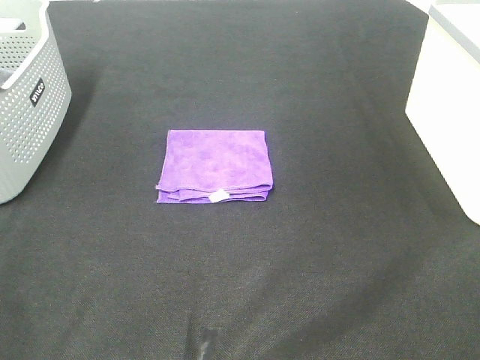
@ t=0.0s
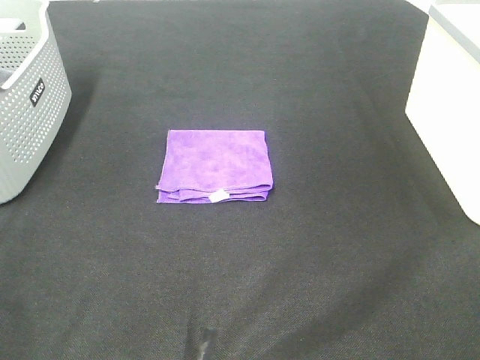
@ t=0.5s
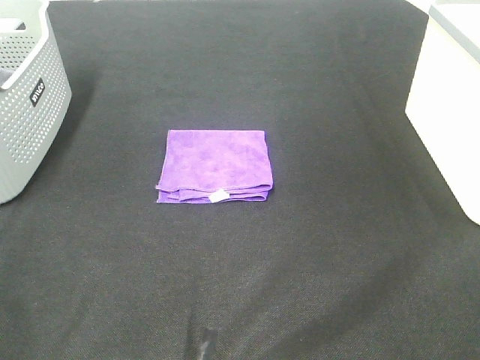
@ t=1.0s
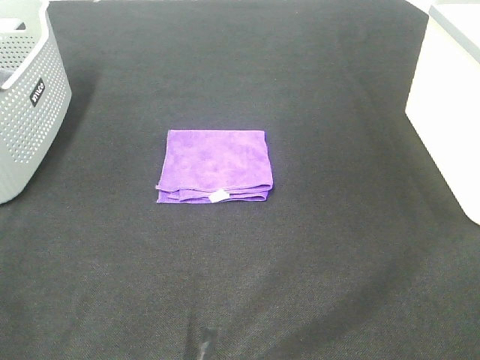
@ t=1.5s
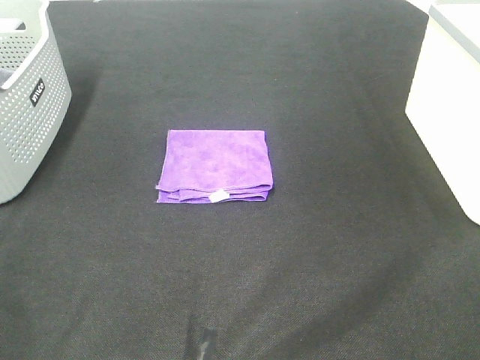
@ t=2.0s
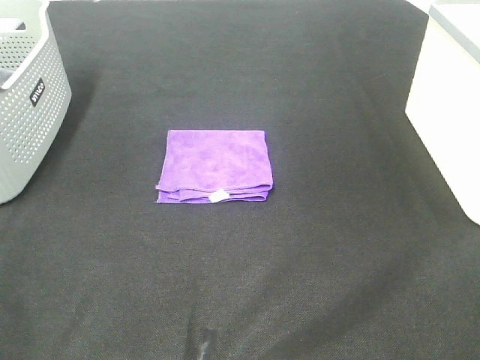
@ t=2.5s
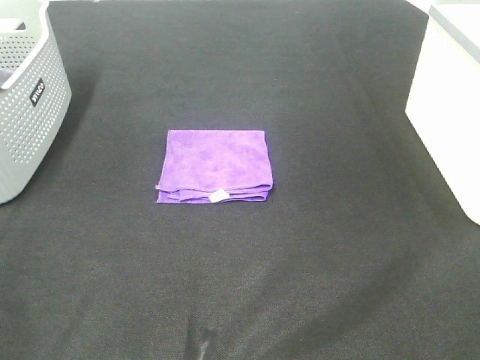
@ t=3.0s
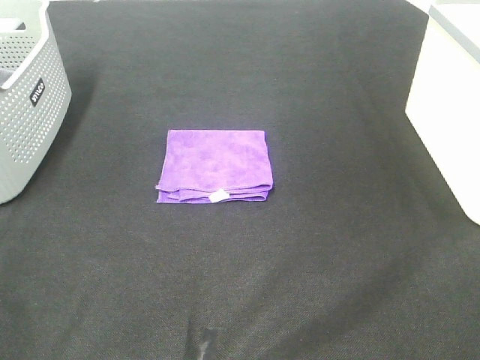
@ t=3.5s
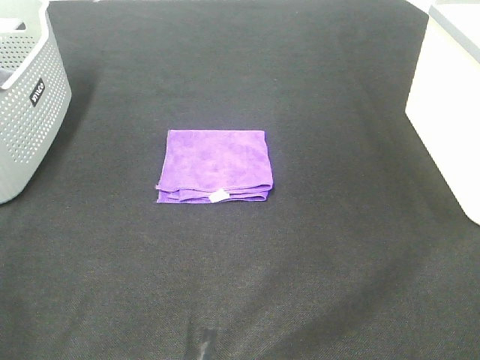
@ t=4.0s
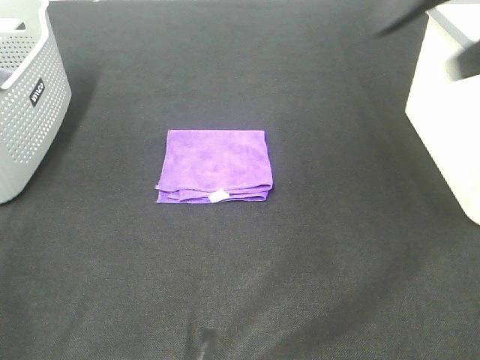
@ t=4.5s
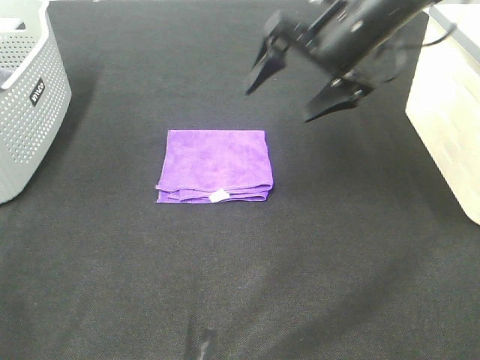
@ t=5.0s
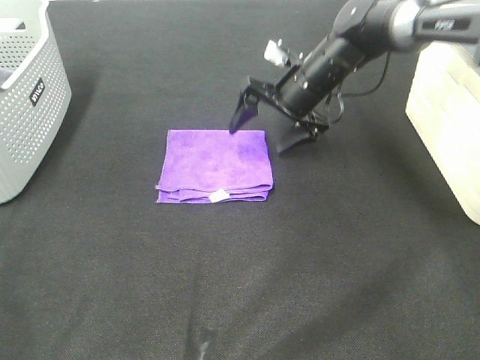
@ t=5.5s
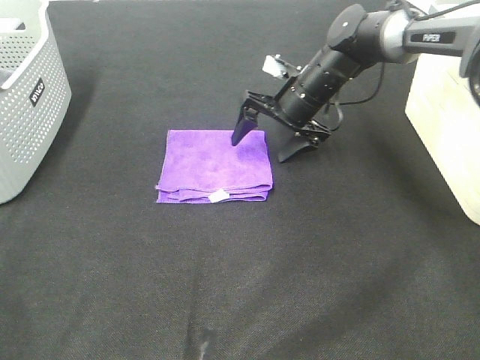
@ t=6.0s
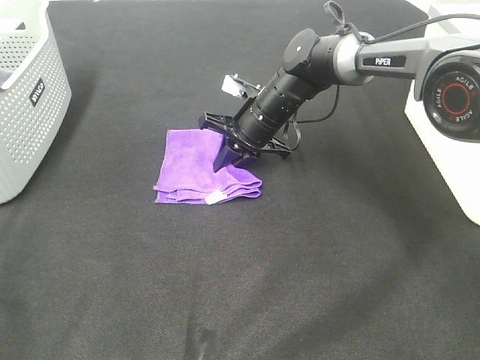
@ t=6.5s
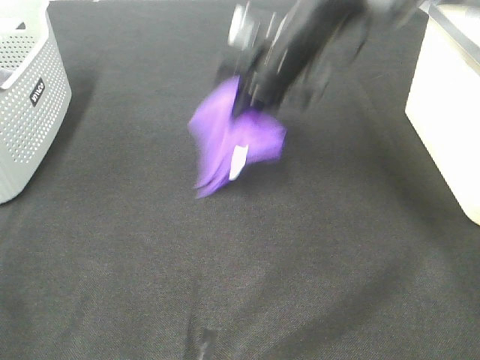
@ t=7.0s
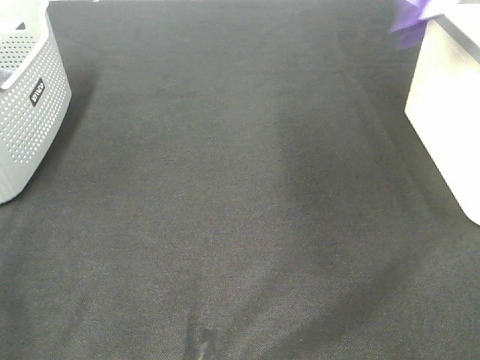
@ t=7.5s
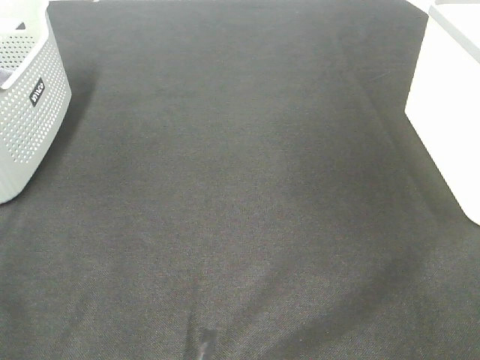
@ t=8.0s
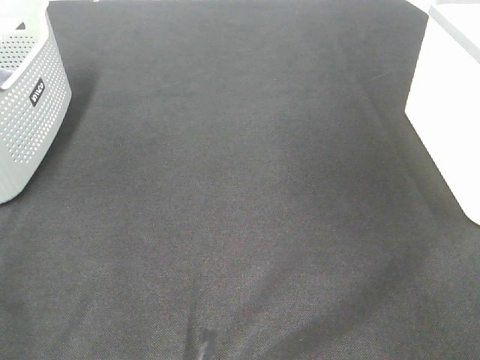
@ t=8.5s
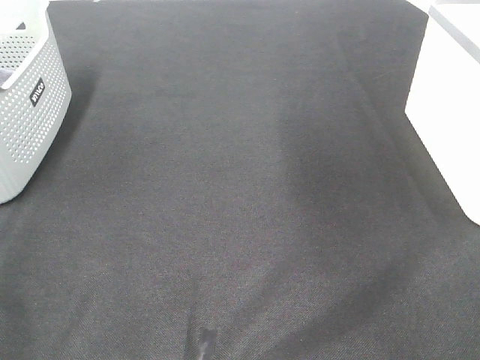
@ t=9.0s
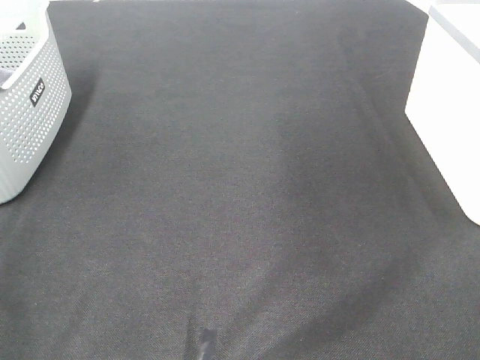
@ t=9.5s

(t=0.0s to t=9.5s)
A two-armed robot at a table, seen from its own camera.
Step, t=0.0s - t=6.5s: Right hand: grab the folded purple towel.
Step, t=7.0s - t=8.0s: Right hand: place the purple towel in right basket.
t=0.0s - t=2.0s: The two grippers keep their place.
t=4.0s - t=5.5s: The right gripper heads forward, downward and to the left, covering roughly 50 cm.
t=5.5s - t=7.5s: The right gripper is displaced upward and to the right by about 35 cm, and closes.
t=7.5s - t=9.5s: The right gripper travels backward by approximately 15 cm, and opens.

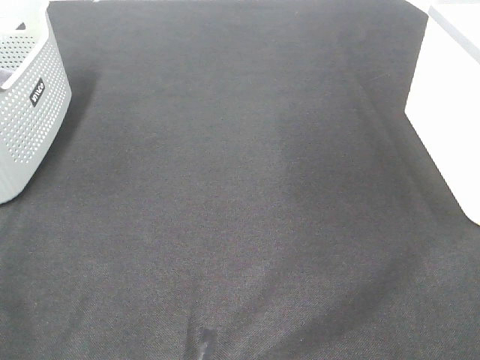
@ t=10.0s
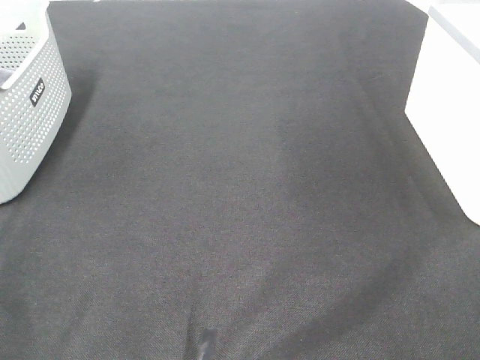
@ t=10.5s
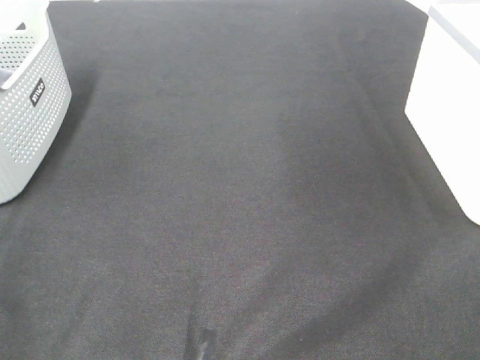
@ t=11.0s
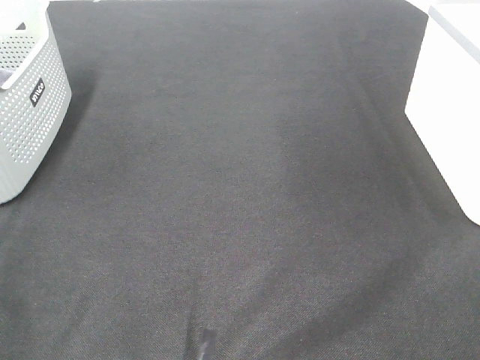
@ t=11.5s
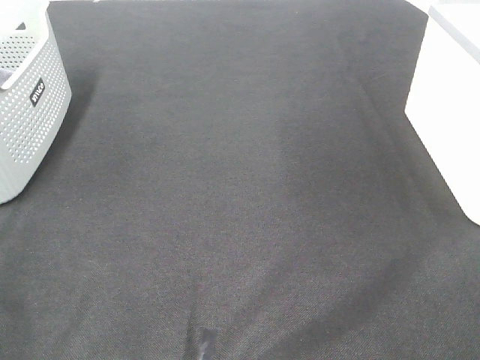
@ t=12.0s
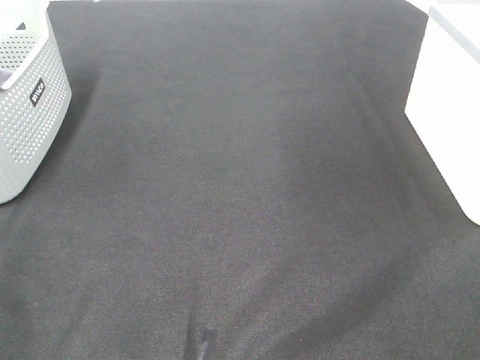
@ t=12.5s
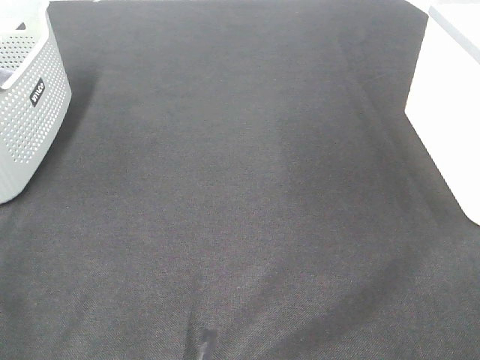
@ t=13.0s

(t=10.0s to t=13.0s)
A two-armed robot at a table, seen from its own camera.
t=11.5s - t=13.0s: The two grippers keep their place.

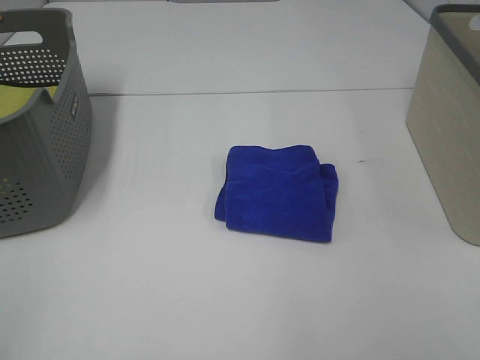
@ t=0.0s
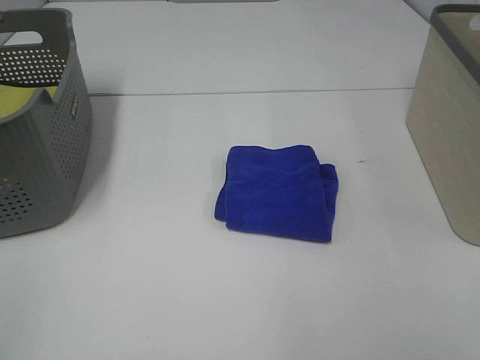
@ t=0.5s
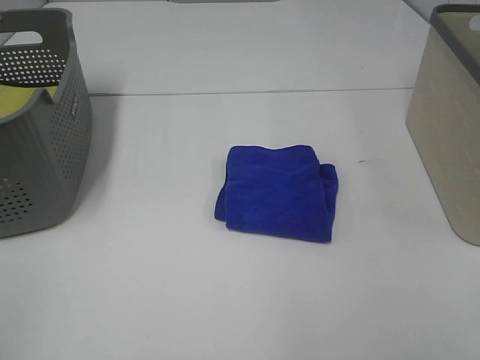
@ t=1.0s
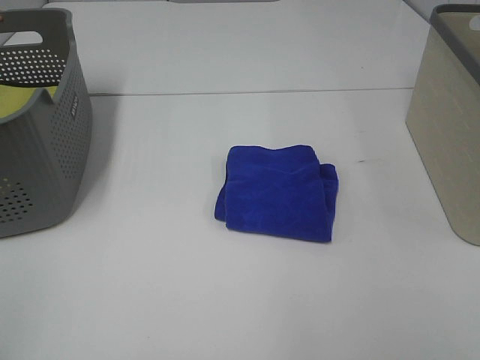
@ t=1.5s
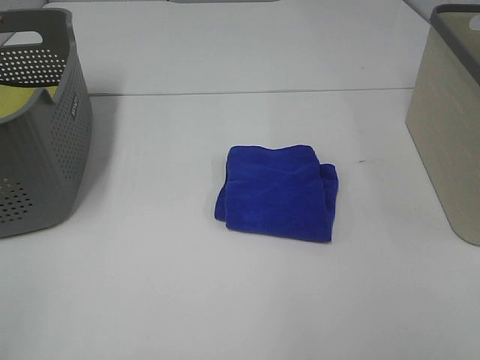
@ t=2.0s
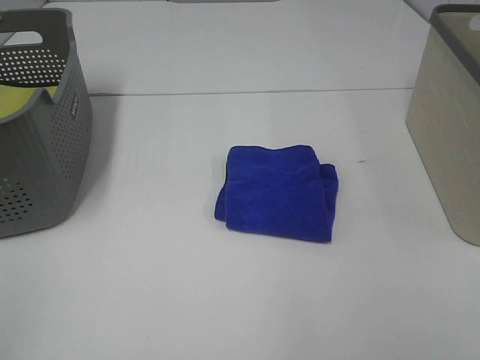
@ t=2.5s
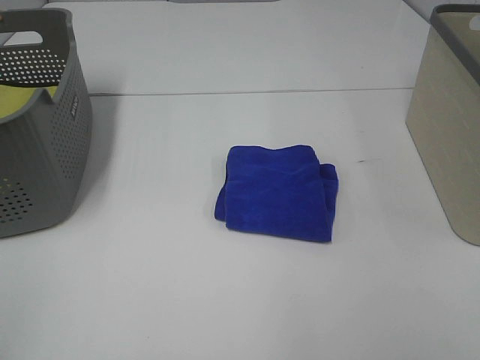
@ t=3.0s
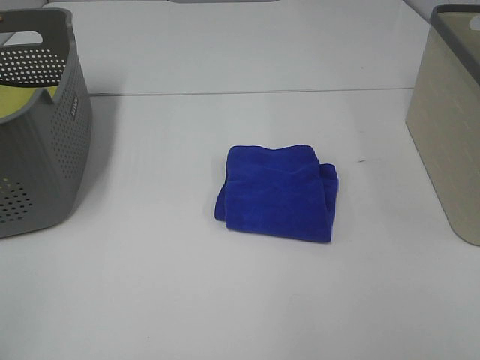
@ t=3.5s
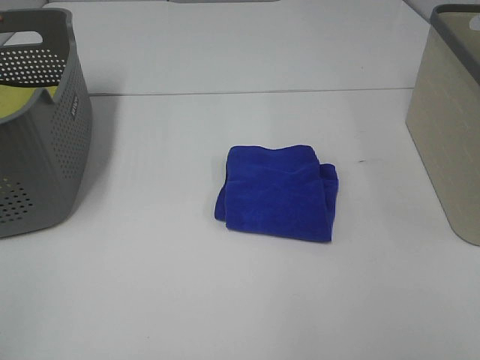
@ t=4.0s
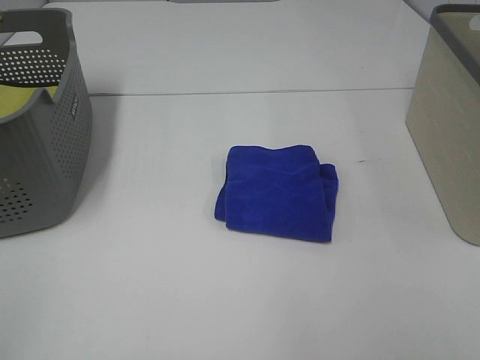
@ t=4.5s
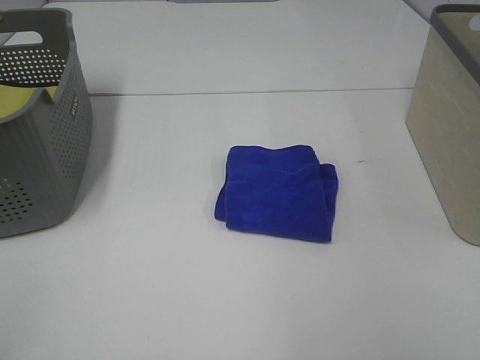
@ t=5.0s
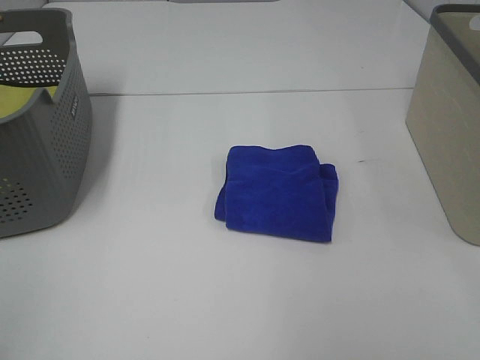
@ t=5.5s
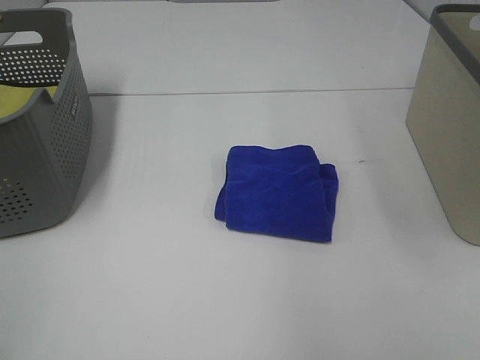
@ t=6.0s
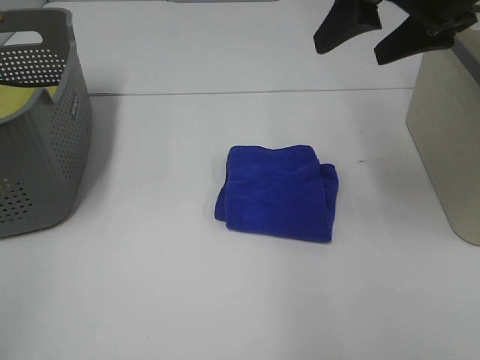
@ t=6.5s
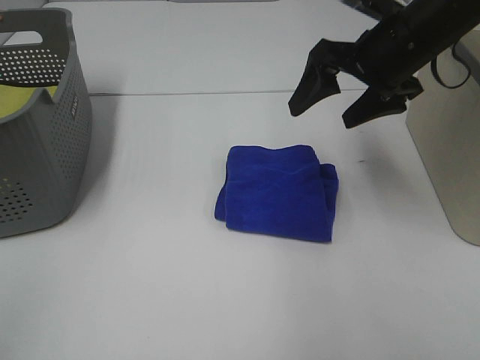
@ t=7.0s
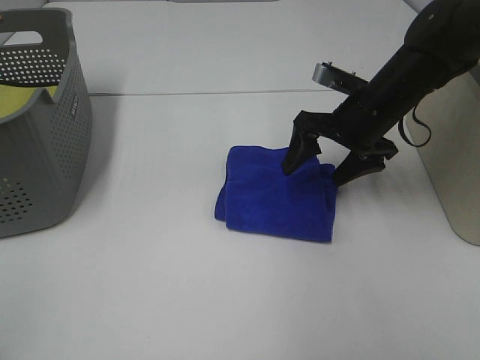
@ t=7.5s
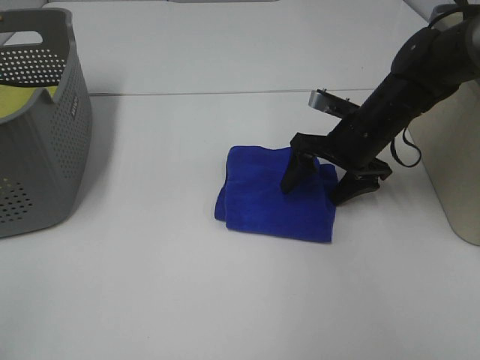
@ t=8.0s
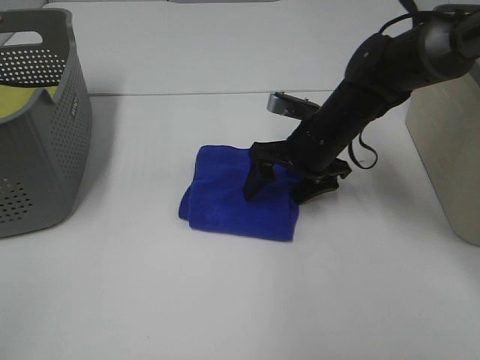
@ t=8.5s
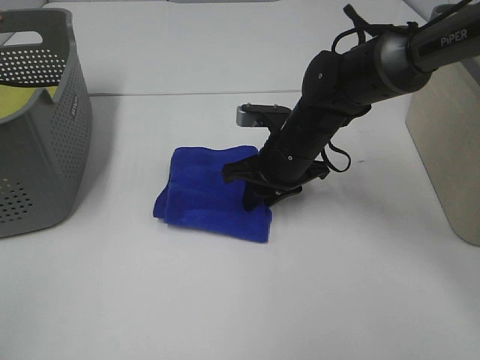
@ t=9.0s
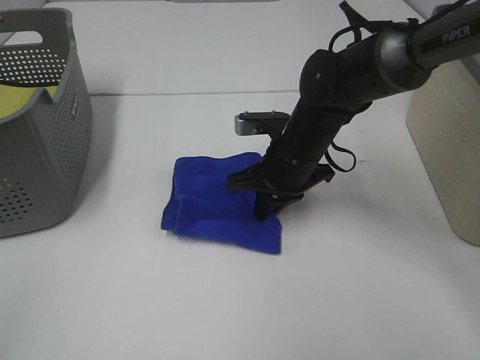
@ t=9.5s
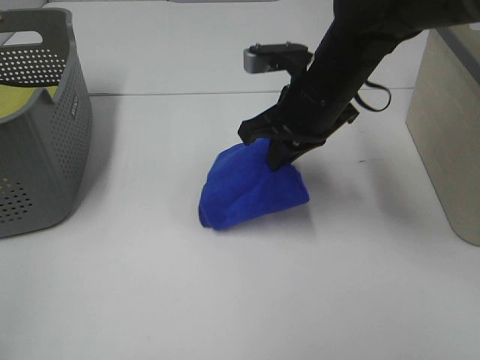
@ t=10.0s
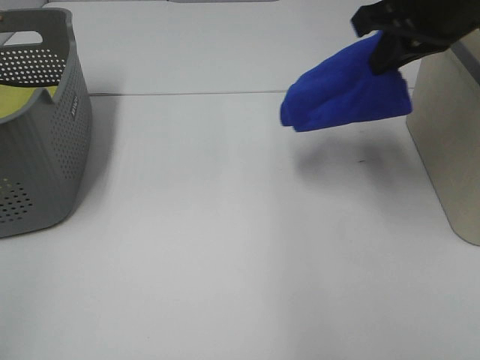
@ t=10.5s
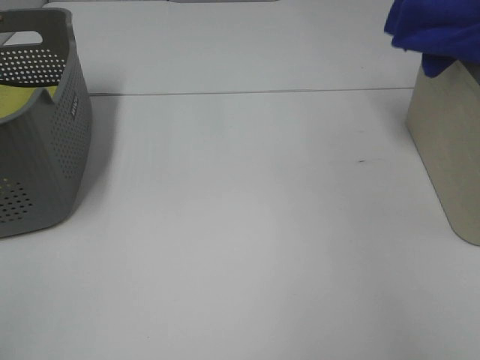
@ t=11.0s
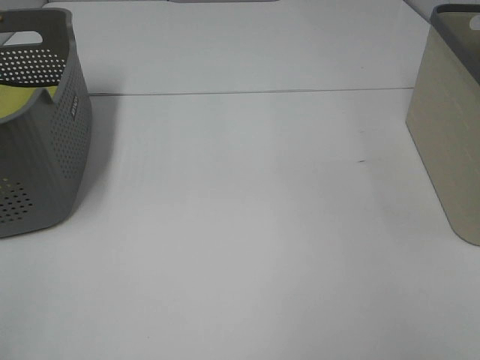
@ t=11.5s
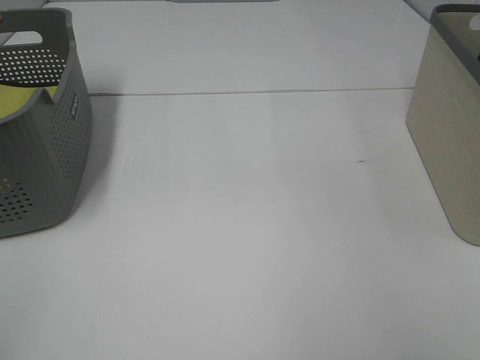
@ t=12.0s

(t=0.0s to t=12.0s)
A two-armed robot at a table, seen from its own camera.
Step, t=0.0s - t=9.0s: Right hand: grab the folded blue towel.
t=0.0s - t=4.0s: Neither gripper changes place.
t=6.0s - t=8.0s: The right gripper goes some 35 cm downward and forward.
t=8.0s - t=10.0s: The right gripper shifts some 15 cm upward and to the left, and closes.
t=10.0s - t=12.0s: The right gripper moves to the right, about 35 cm.

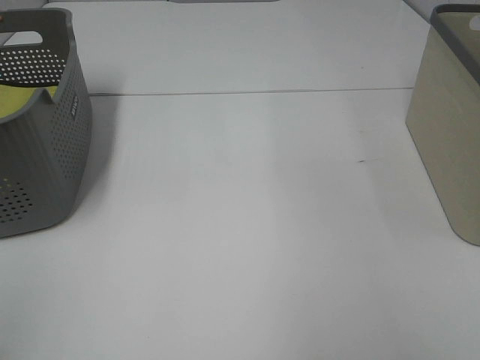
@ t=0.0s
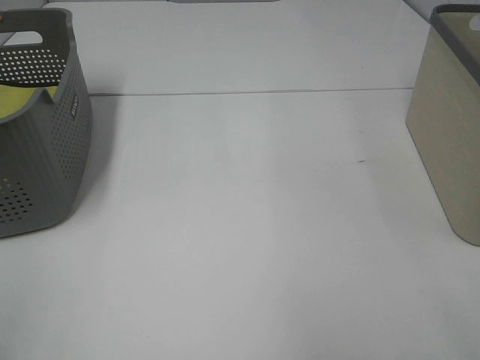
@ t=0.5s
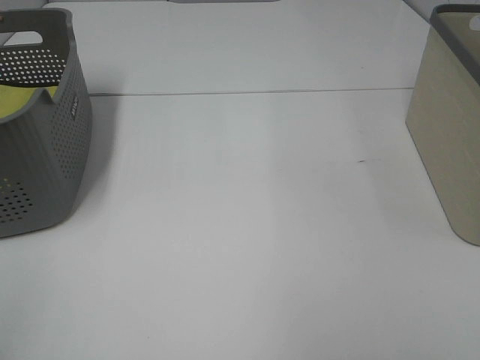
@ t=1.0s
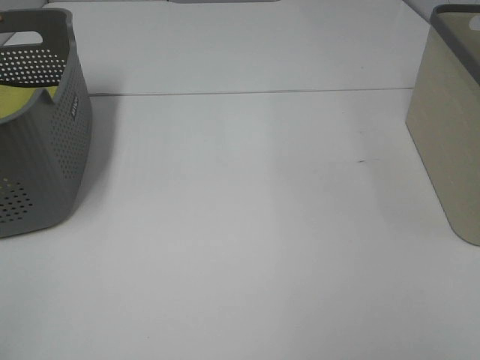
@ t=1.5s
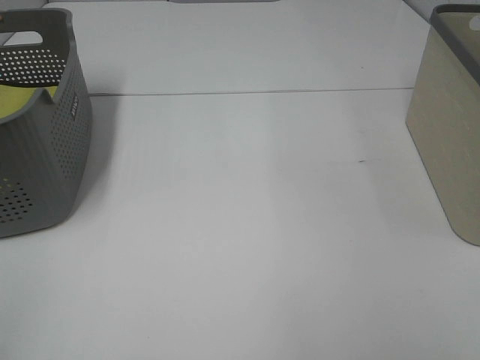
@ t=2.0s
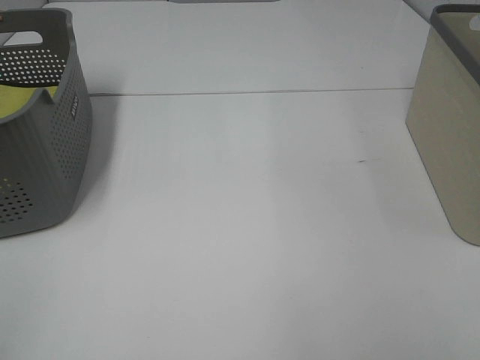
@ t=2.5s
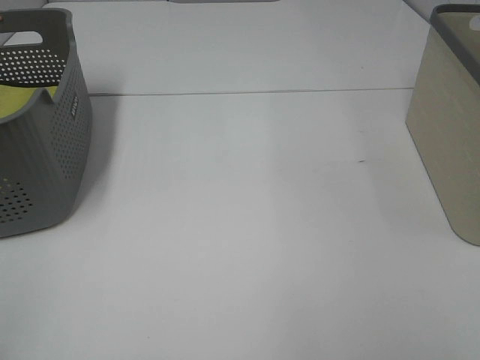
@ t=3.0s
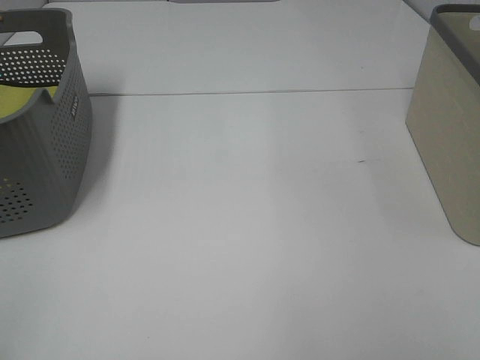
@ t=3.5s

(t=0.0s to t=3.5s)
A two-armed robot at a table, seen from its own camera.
t=2.0s - t=3.5s: Neither gripper changes place.
